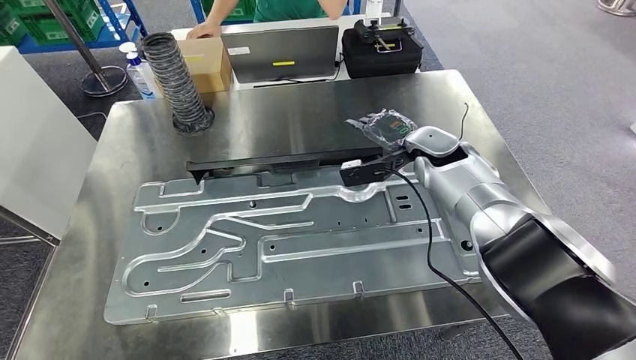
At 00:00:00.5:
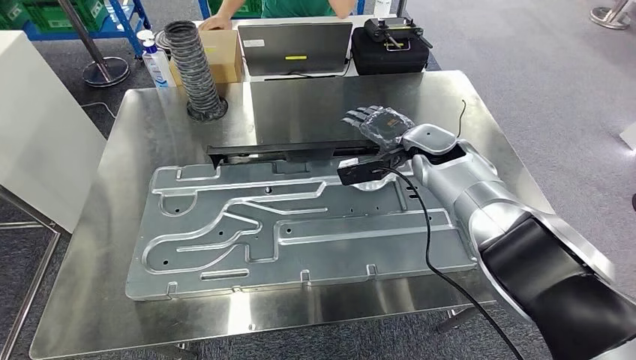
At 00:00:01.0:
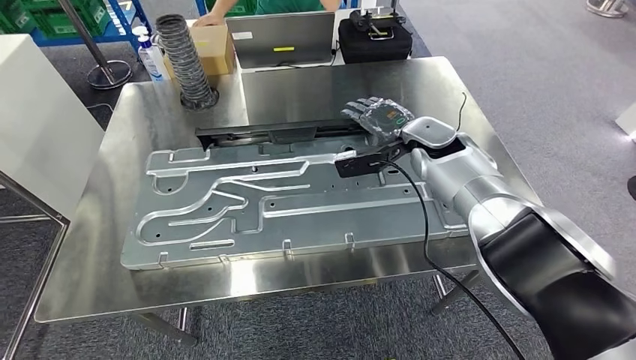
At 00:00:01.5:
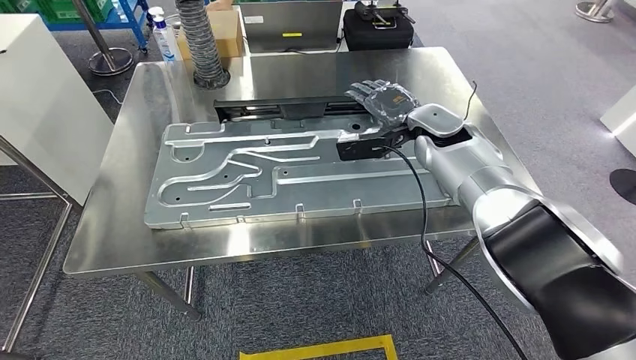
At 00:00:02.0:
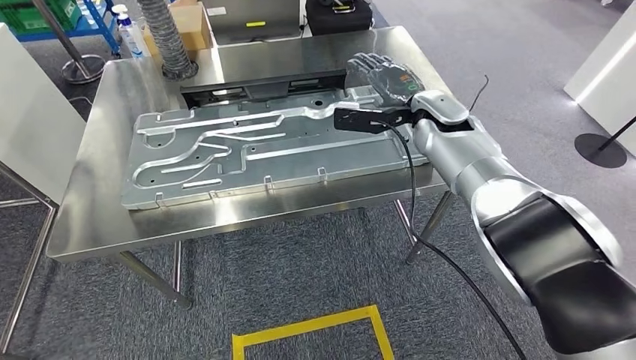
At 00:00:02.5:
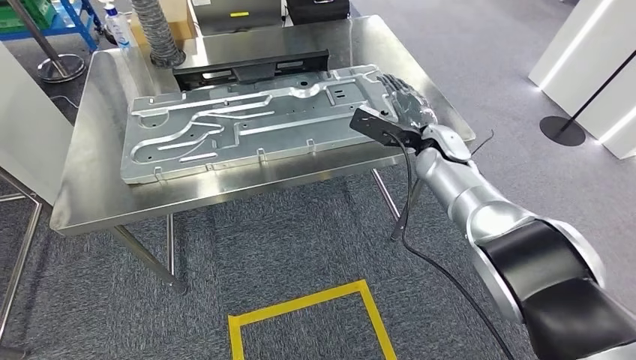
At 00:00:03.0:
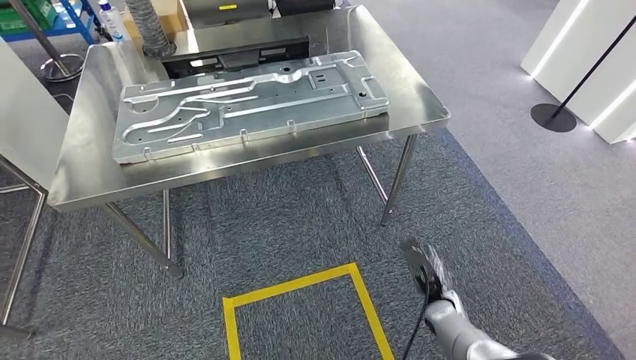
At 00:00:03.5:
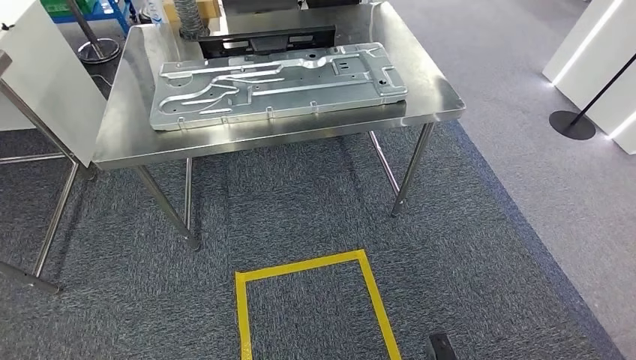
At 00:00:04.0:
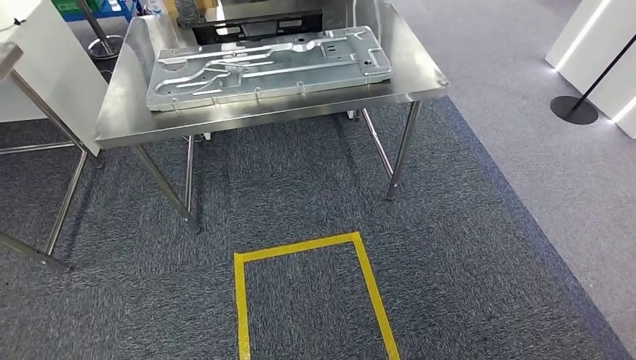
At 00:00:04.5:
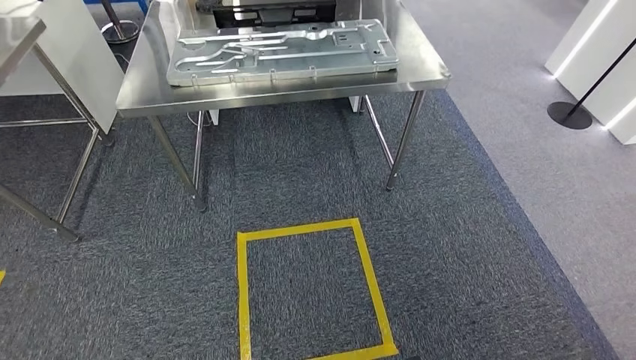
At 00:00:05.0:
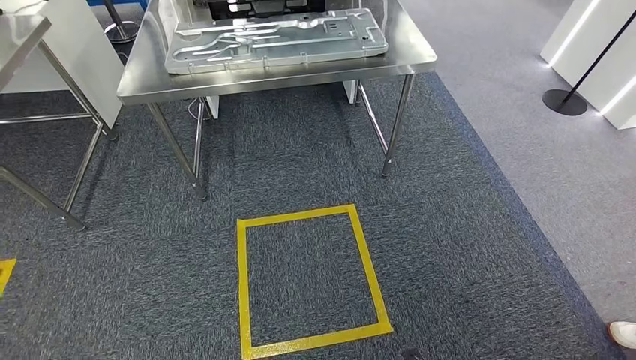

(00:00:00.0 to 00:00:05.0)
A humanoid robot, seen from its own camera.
Step, 00:00:02.0 - 00:00:05.0: Return to the initial position at the shelf.
